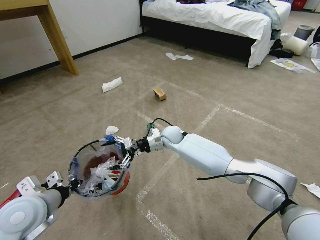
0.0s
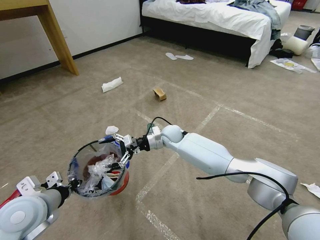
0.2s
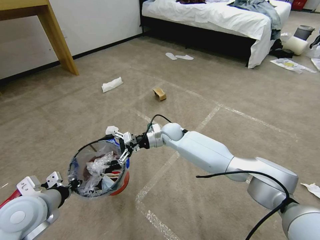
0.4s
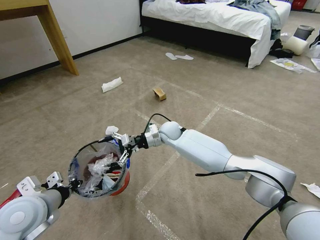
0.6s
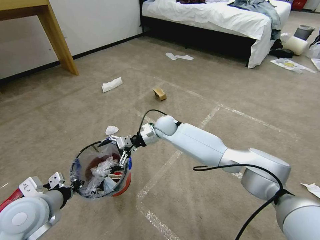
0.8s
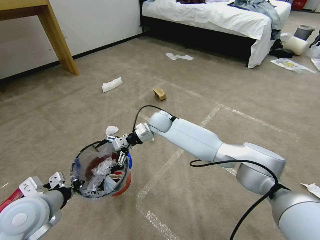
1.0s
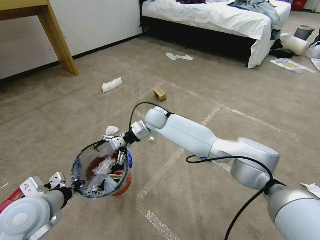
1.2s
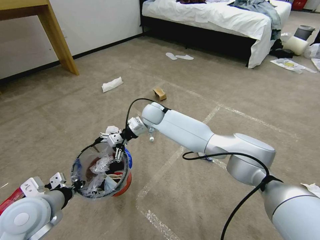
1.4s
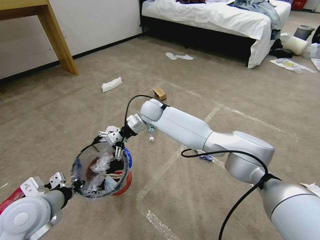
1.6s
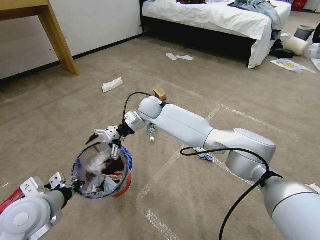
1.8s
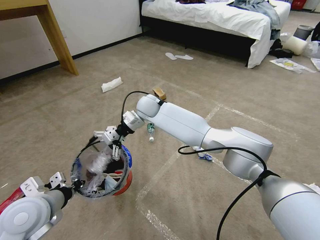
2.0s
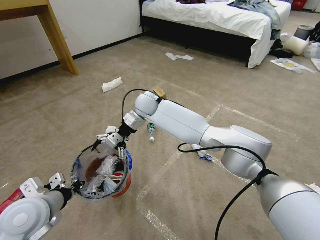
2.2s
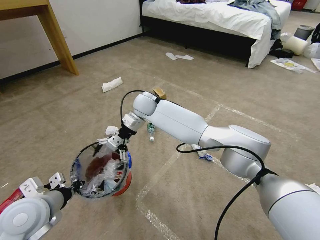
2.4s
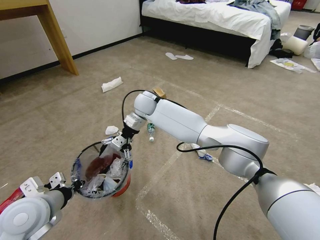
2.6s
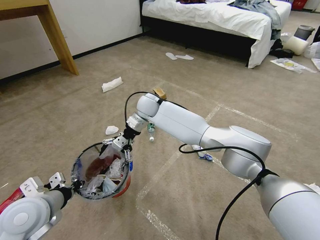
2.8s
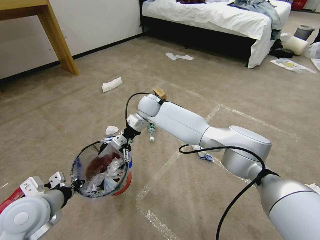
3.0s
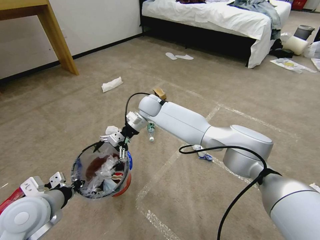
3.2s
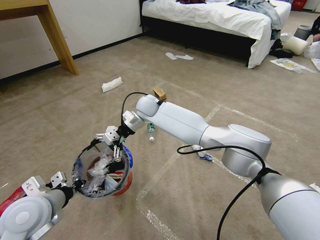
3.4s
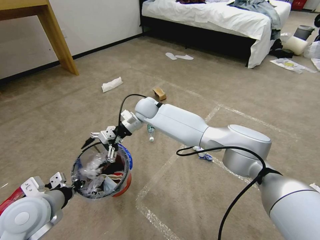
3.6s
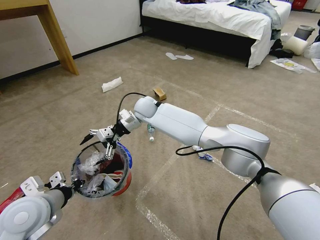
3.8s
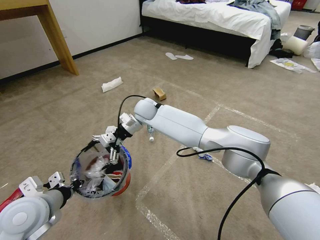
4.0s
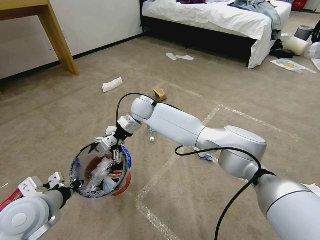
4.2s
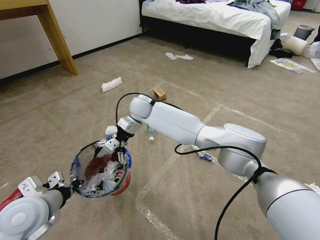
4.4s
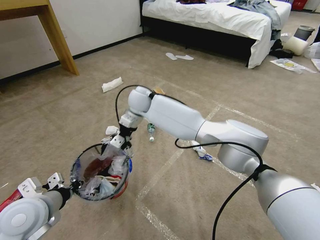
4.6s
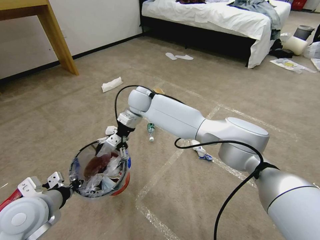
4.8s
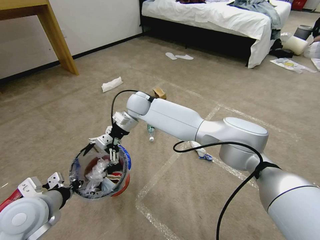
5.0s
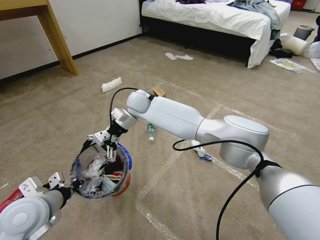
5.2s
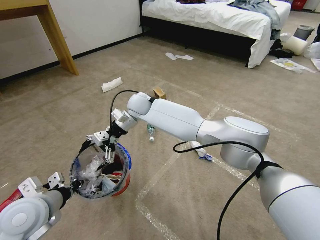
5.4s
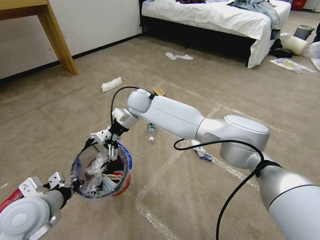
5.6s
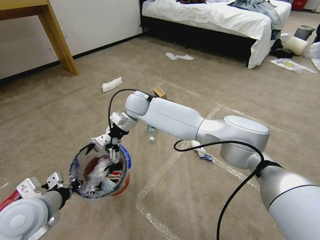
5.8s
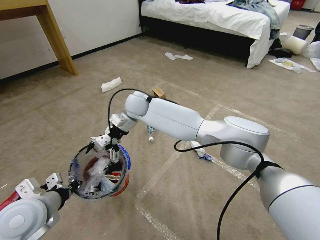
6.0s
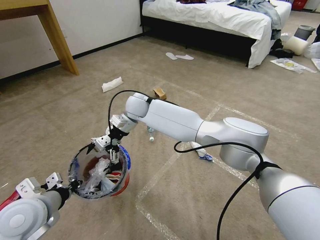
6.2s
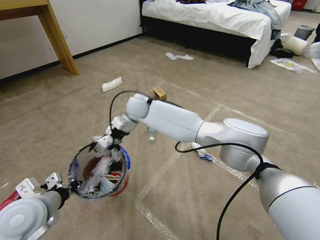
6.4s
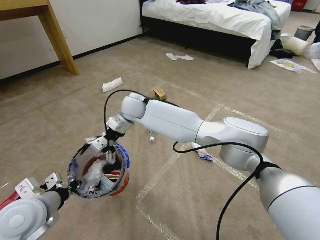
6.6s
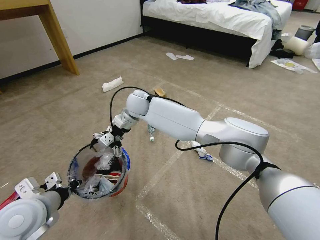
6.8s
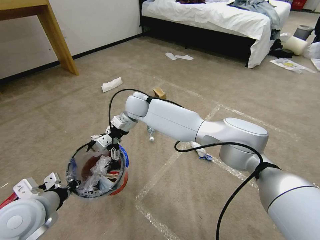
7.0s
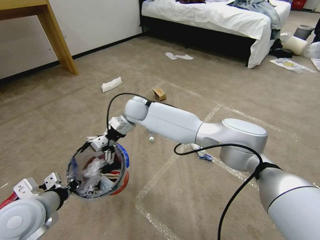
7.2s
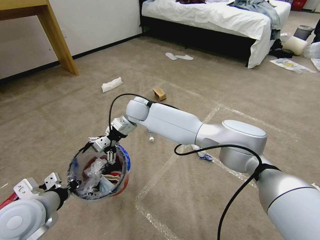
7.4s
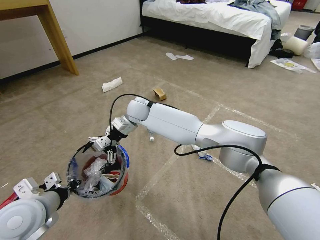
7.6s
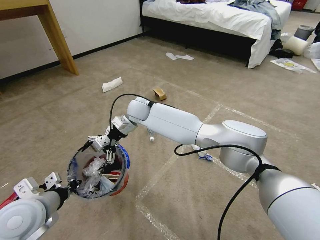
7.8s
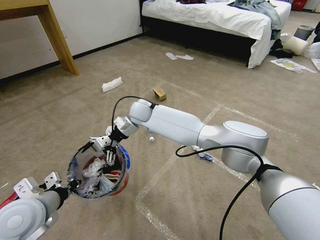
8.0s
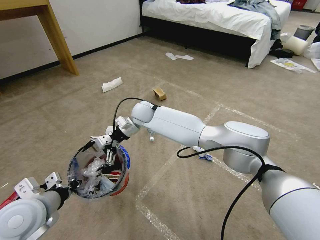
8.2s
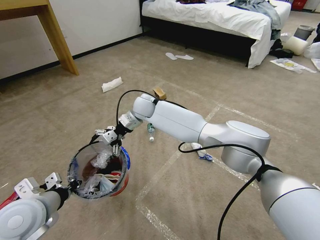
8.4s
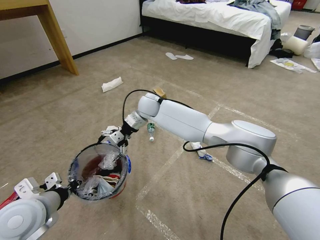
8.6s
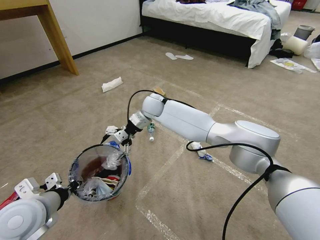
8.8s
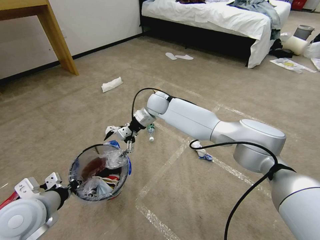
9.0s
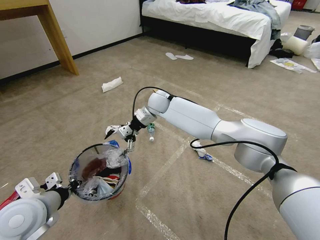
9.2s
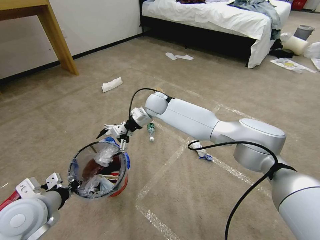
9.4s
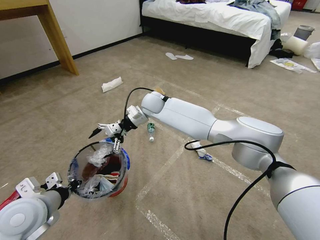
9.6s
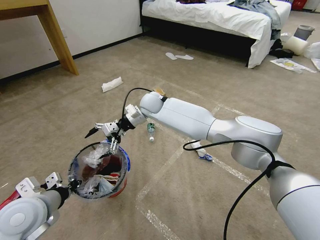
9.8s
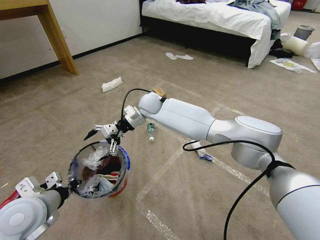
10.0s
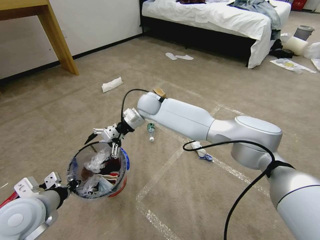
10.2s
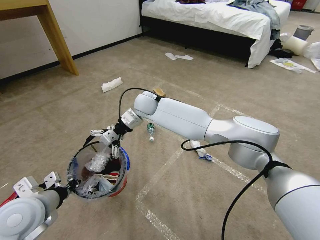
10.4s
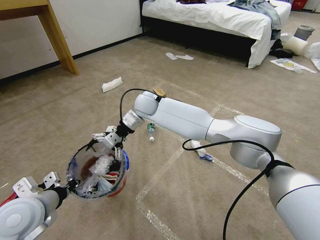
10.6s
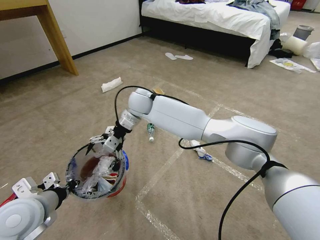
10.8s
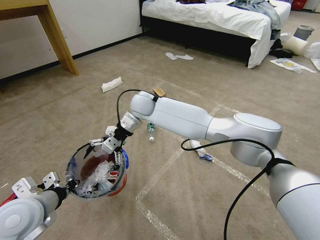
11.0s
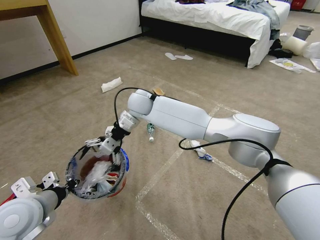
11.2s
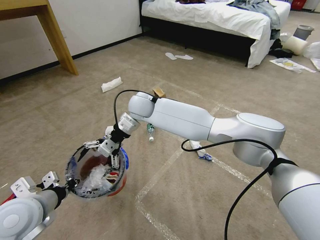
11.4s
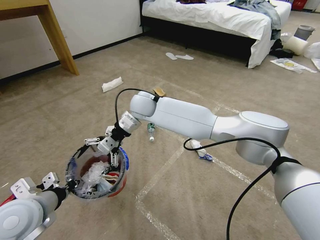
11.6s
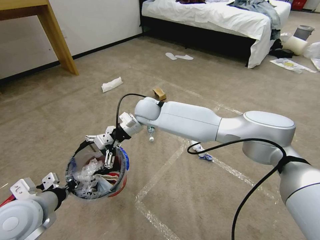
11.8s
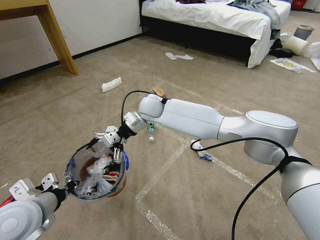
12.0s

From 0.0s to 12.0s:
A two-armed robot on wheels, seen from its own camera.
Task of the whole recording: Pick up the trash bin and place the garbage on the floor into it.
From 0.0s to 1.6s: The right gripper shifts approximately 15 cm upward and to the left.
From 1.6s to 4.4s: The grippers make only small movements.
From 4.4s to 7.6s: The grippers make only small movements.
From 7.6s to 9.0s: The right gripper travels to the right by roughly 10 cm.
From 9.0s to 10.4s: The right gripper moves roughly 5 cm.
From 10.4s to 12.0s: The grippers move only a little.

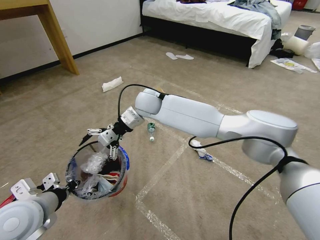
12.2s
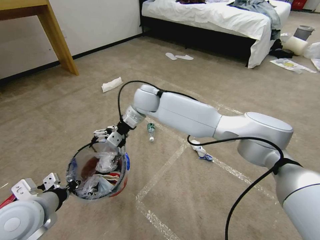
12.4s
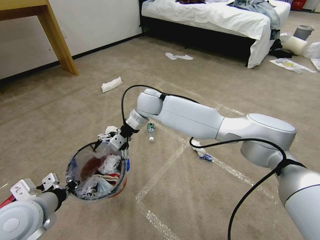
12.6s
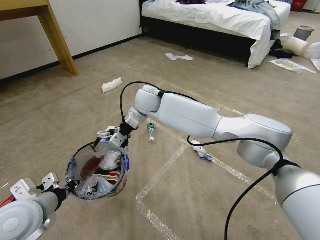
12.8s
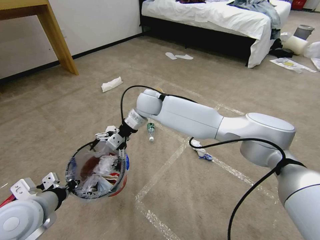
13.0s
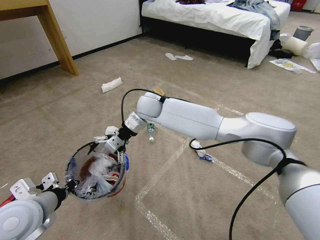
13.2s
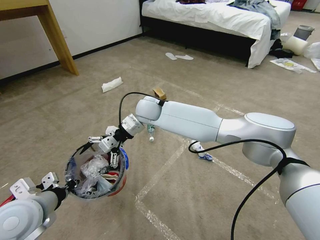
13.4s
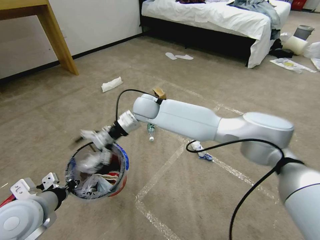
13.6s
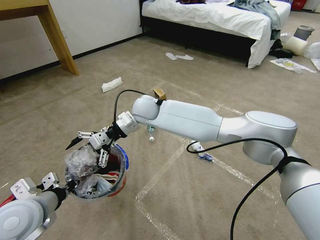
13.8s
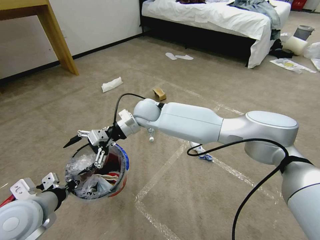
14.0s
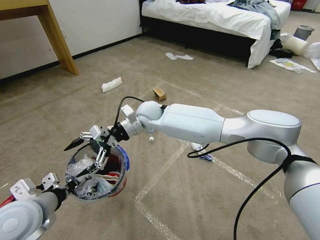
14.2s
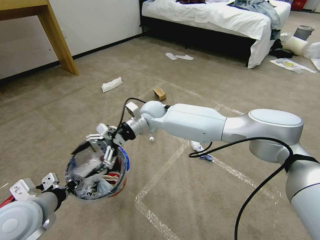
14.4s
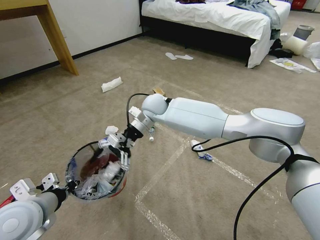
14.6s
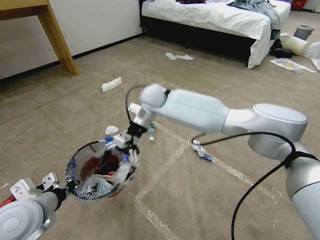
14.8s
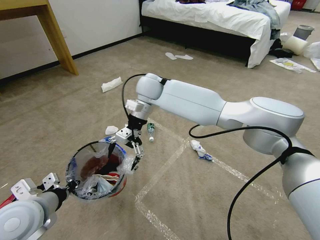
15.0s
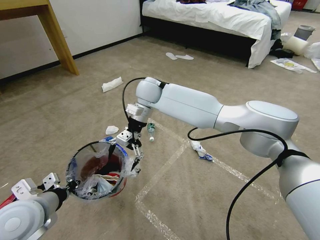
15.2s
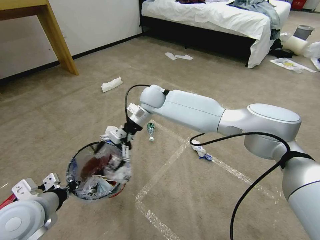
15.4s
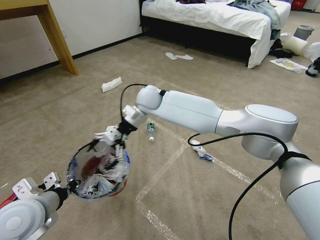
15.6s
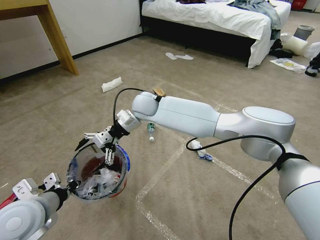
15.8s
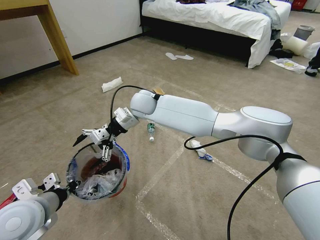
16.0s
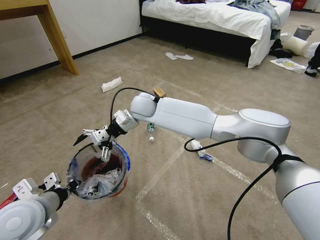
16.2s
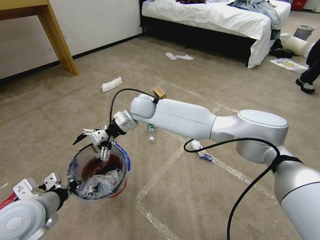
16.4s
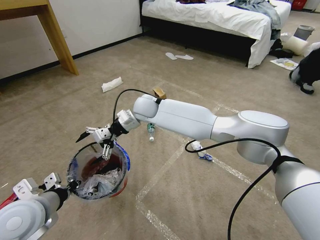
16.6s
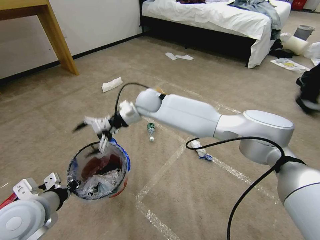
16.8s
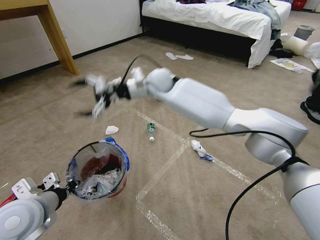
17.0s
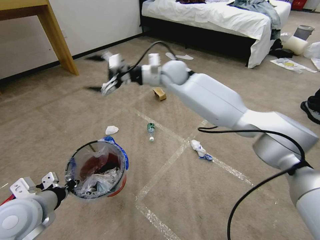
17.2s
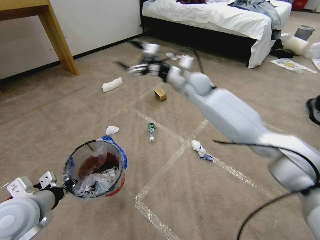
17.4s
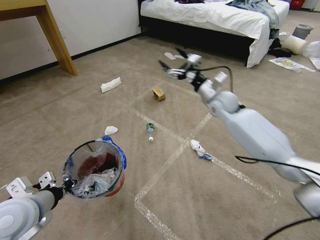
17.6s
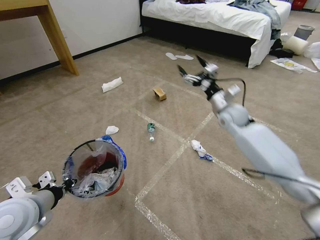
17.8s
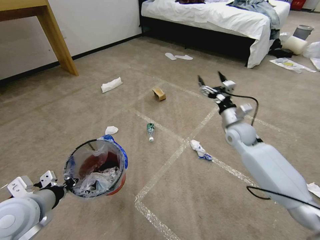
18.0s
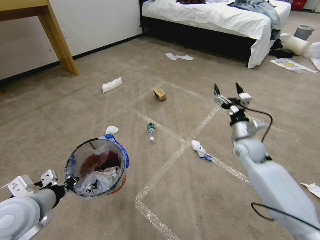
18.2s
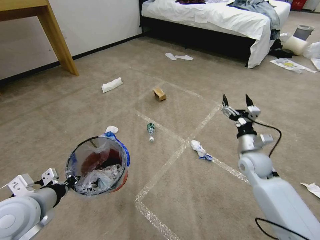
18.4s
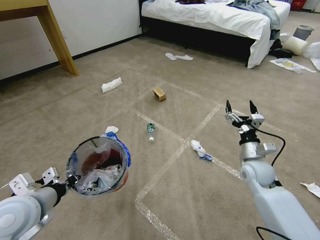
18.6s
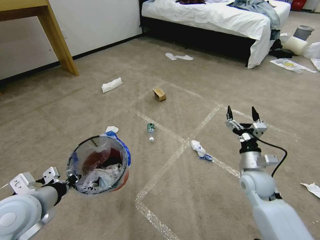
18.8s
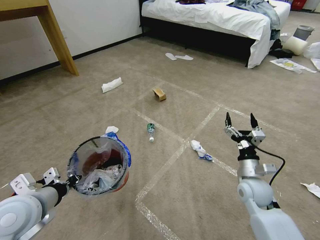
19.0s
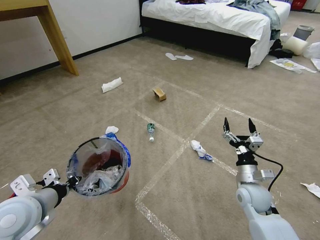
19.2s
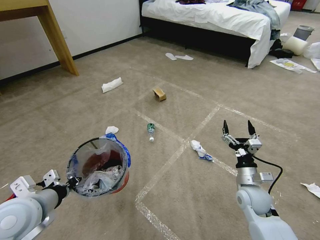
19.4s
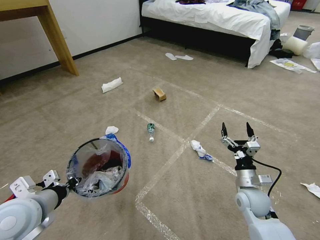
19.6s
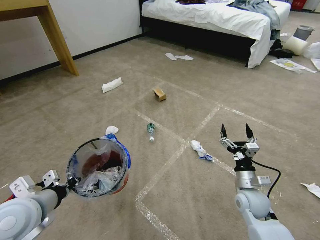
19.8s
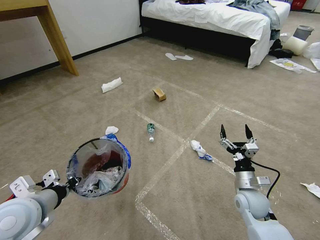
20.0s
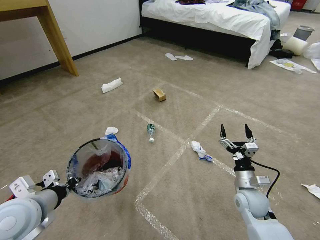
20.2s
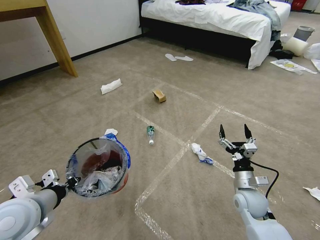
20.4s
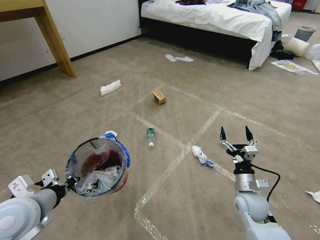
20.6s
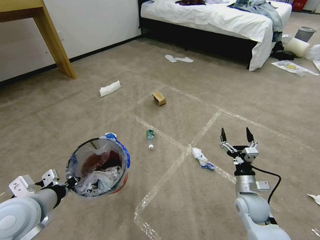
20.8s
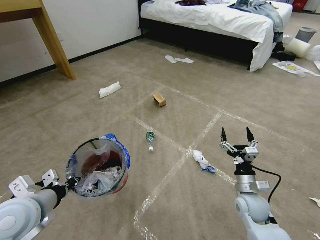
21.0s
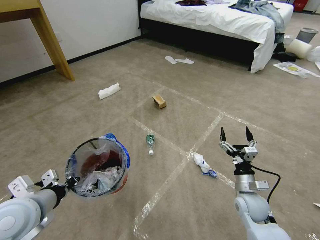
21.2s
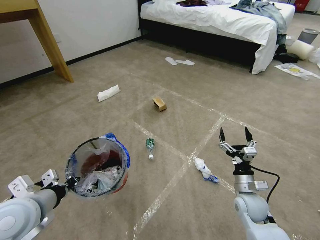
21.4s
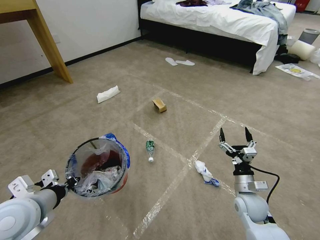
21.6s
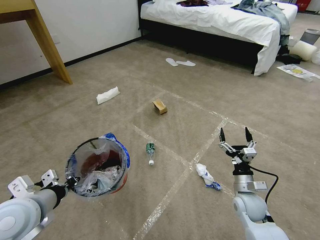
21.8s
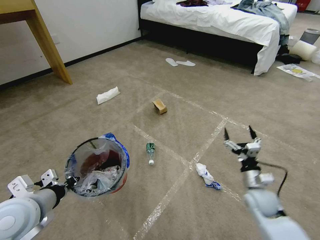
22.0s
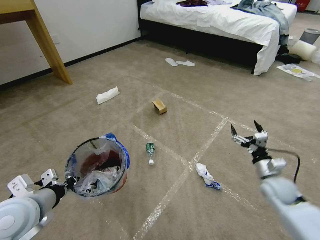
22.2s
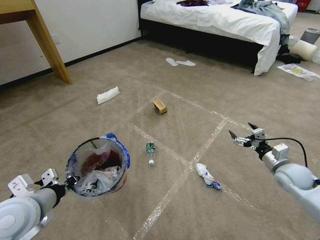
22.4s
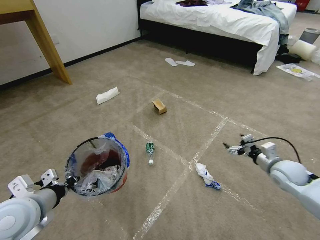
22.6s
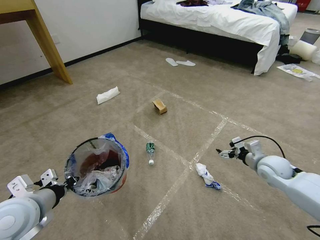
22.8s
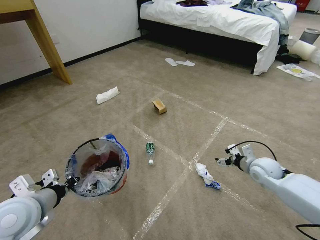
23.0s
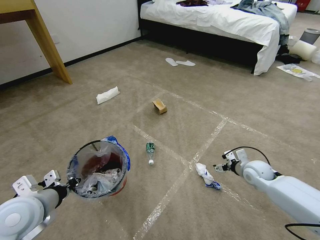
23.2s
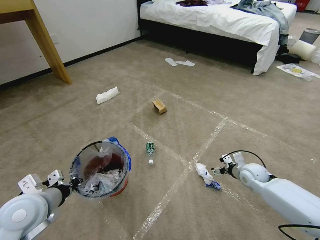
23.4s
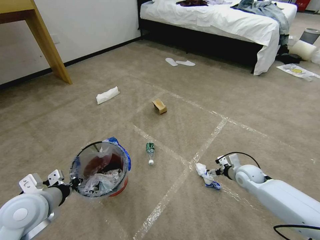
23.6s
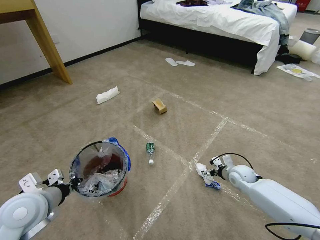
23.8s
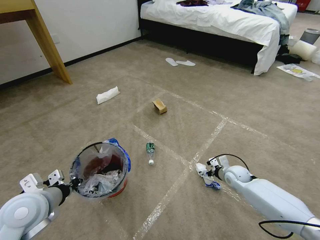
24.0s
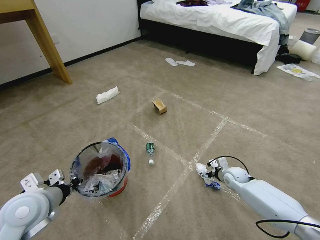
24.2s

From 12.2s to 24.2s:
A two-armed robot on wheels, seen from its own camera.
Task of the whole recording: Pick up the trash bin and place the garbage on the floor into it.
From 12.2s to 13.8s: The grippers make only small movements.
From 13.8s to 15.2s: The right gripper changes place by approximately 5 cm.
From 15.2s to 16.6s: The right gripper goes roughly 5 cm downward.
From 16.6s to 18.2s: The right gripper shifts some 35 cm to the right.
From 18.2s to 19.8s: The right gripper moves backward and downward, about 20 cm.
From 19.8s to 21.2s: Both grippers stay about where they are.
From 21.2s to 22.6s: The right gripper heads to the right, upward and forward, covering about 15 cm.
From 22.6s to 24.2s: The right gripper shifts roughly 20 cm downward, to the left and forward.
